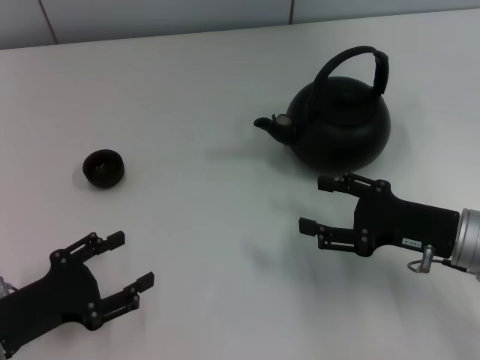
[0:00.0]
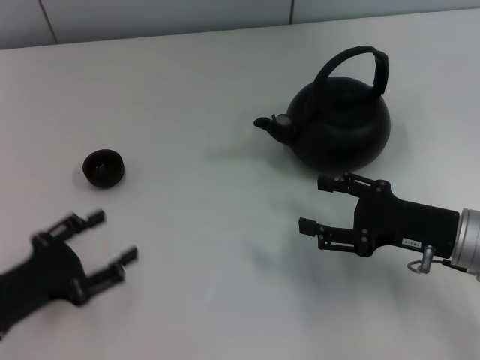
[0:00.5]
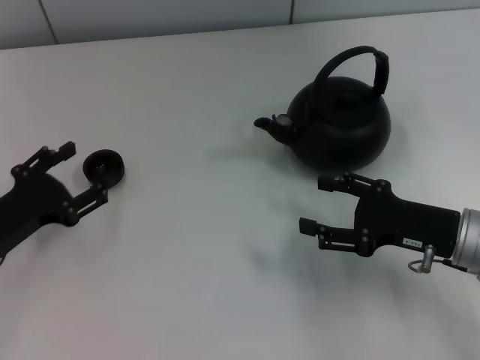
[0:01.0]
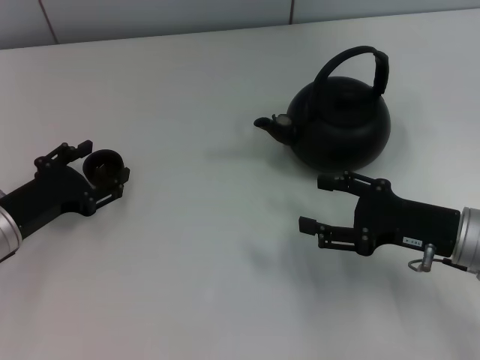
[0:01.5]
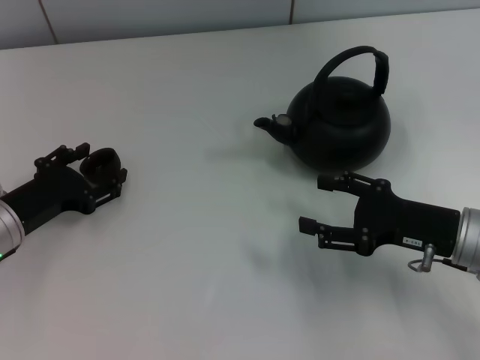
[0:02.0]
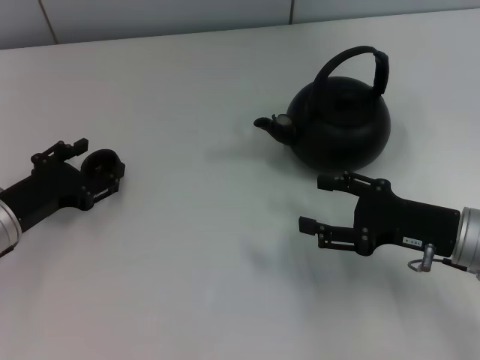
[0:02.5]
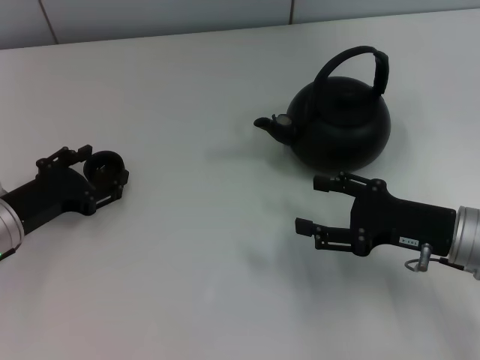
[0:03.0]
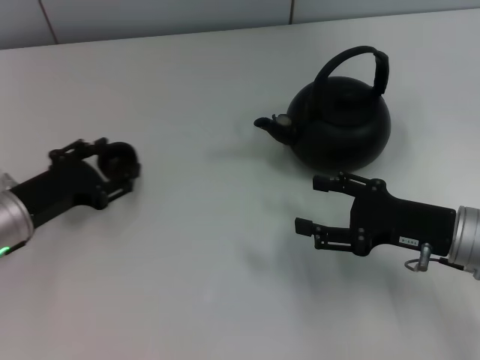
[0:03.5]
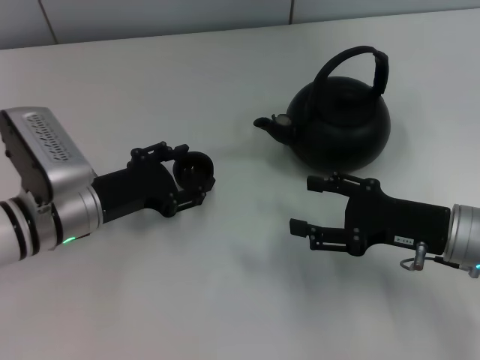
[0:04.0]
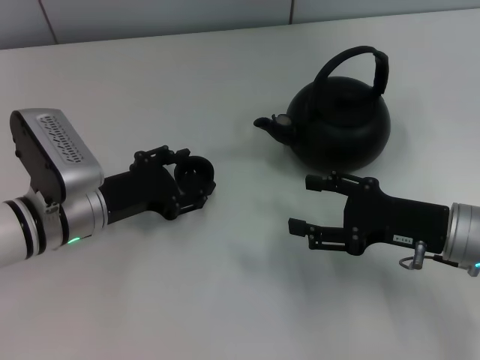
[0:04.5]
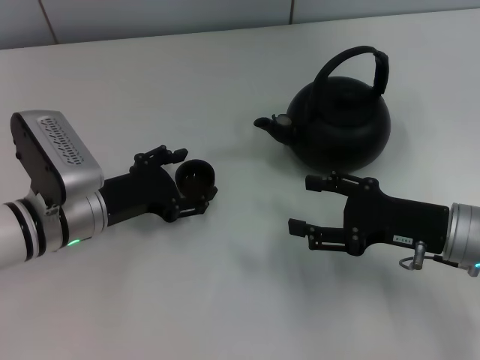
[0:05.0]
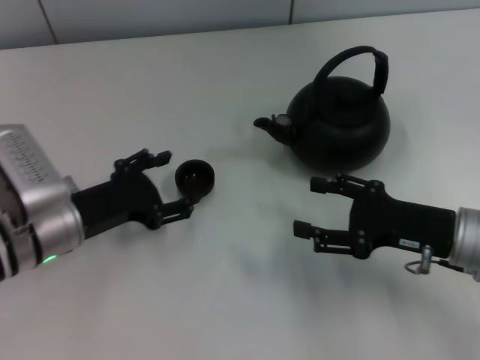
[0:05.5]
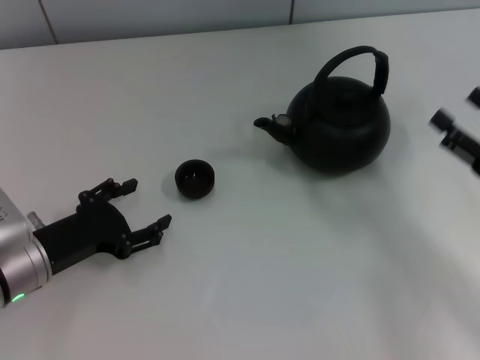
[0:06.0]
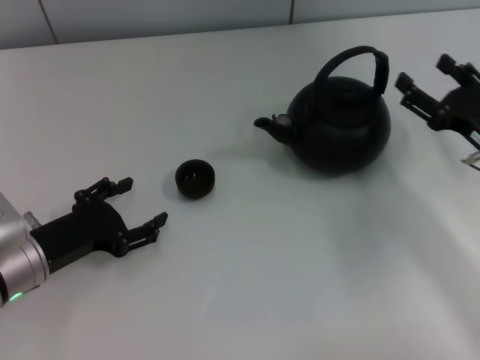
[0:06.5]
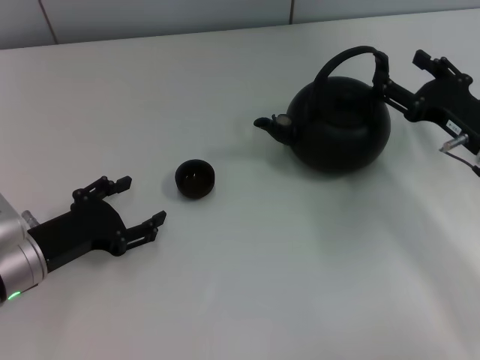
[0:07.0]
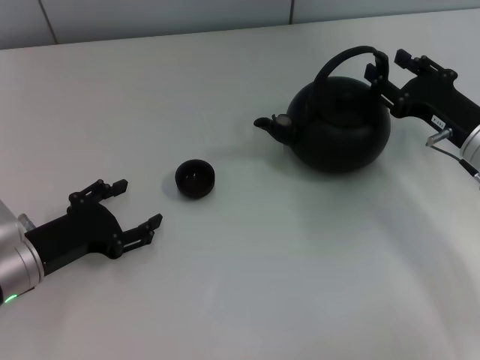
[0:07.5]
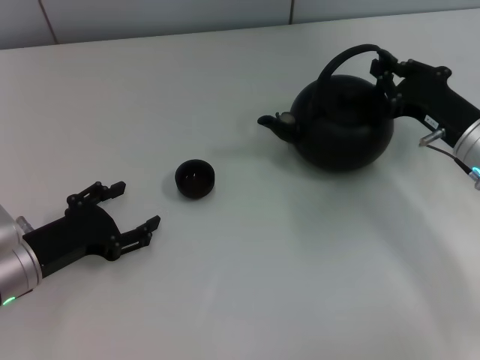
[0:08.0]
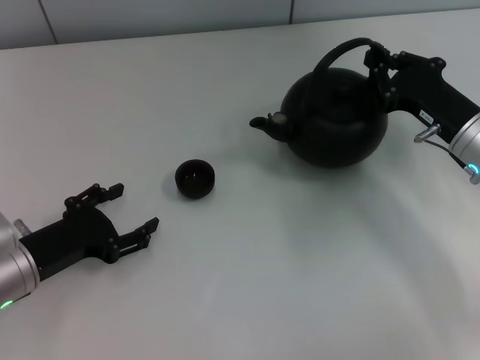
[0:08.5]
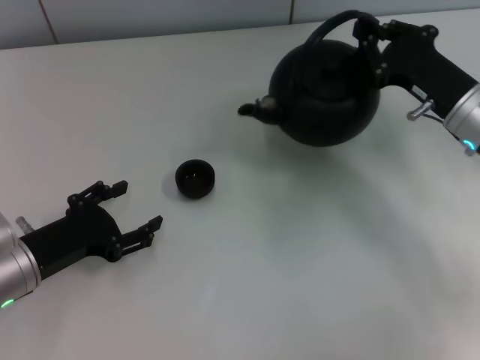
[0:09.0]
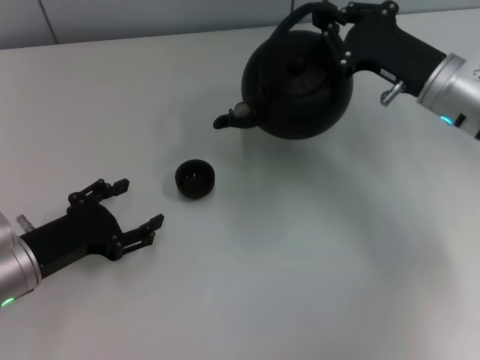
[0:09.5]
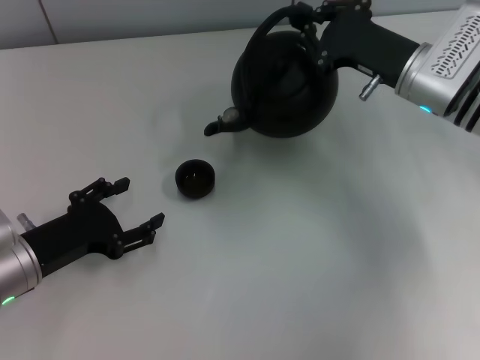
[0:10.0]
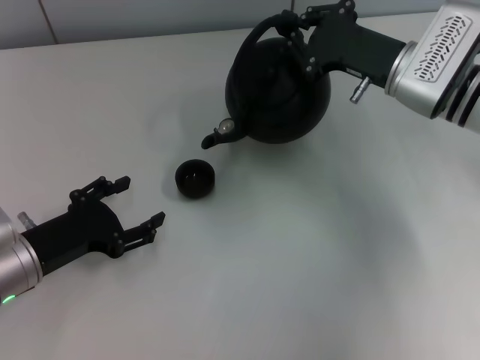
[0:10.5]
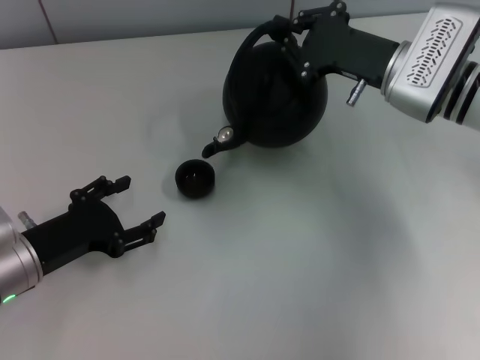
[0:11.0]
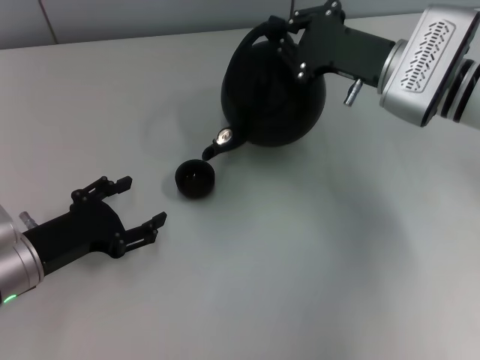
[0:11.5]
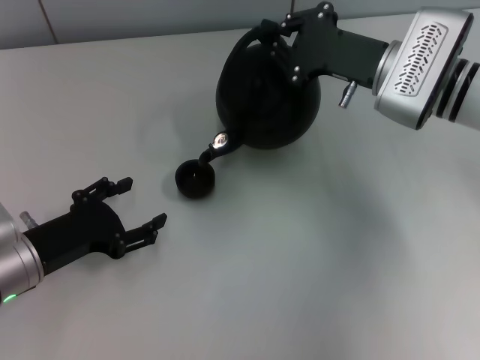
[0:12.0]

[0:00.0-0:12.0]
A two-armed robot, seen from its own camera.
Task of the whole recording: Grasp the handle of the teapot with one hand and pour tea into the teacup.
Step, 0:00.0 to 0:04.0: Pick up the teacup with the left gripper.
Step, 0:04.5 to 0:05.5: Place the teacup in the center of view with the left gripper.
Step, 0:06.0 to 0:08.5: Pick up the teapot with the right gripper.
0:00.0 to 0:02.0: The left gripper is displaced forward by some 10 cm.
0:02.0 to 0:04.0: The left gripper shifts some 5 cm to the right, and opens, then closes once more.
0:04.0 to 0:06.0: The right gripper is displaced to the right by approximately 10 cm. The left gripper moves some 5 cm, and opens up.
0:06.0 to 0:08.0: The right gripper goes roughly 10 cm forward and to the left, and closes.
0:08.0 to 0:10.0: The right gripper goes some 10 cm forward, to the left and upward, and closes its fingers.
0:10.0 to 0:12.0: There are only small adjustments of the grippers.

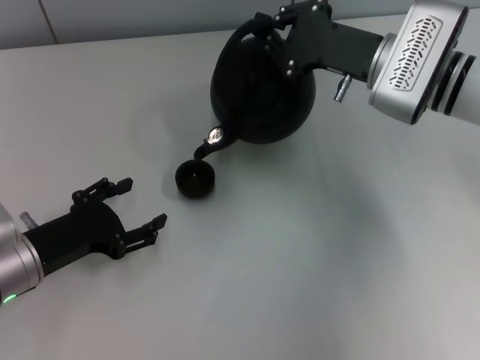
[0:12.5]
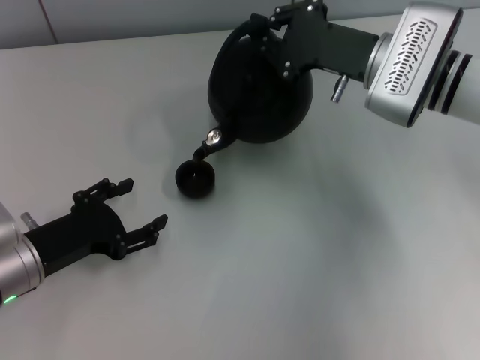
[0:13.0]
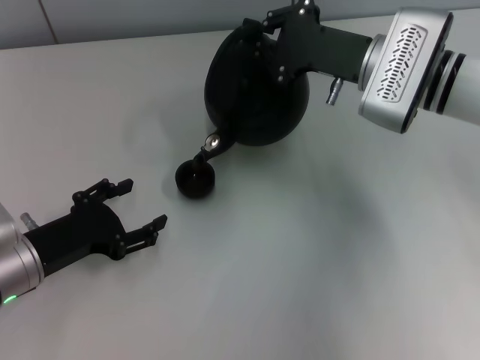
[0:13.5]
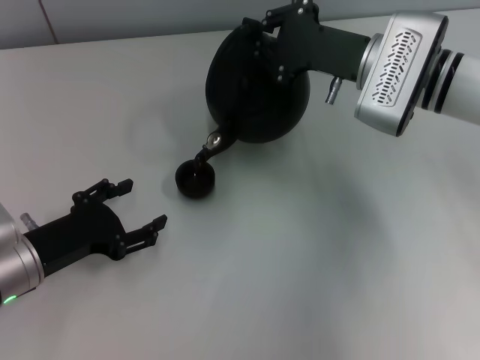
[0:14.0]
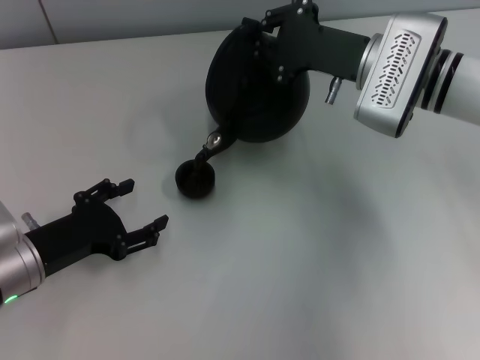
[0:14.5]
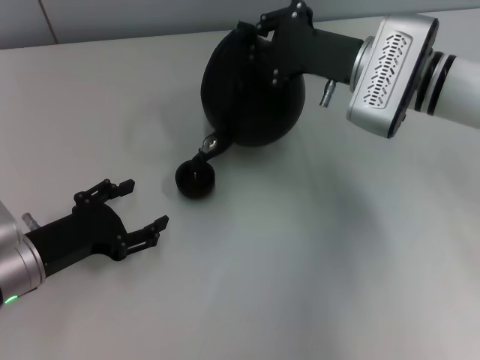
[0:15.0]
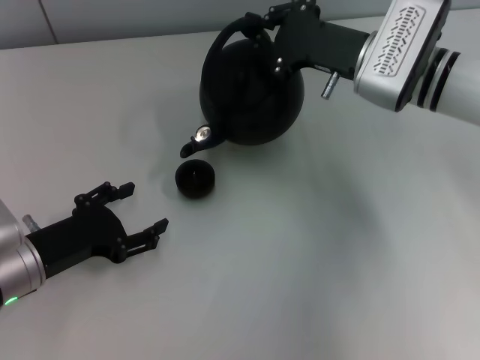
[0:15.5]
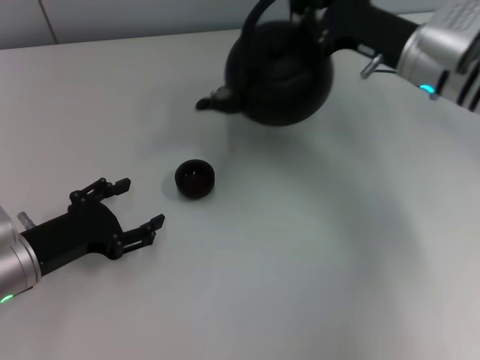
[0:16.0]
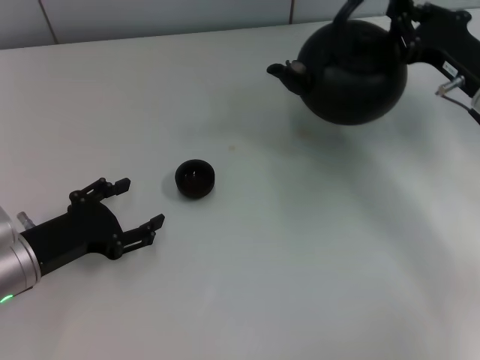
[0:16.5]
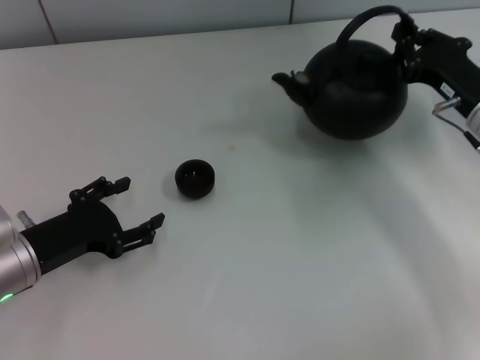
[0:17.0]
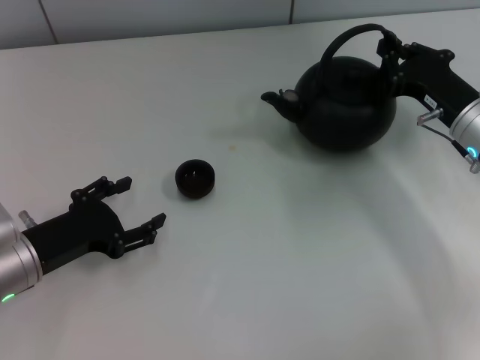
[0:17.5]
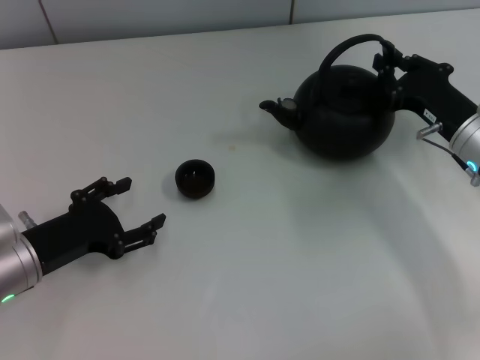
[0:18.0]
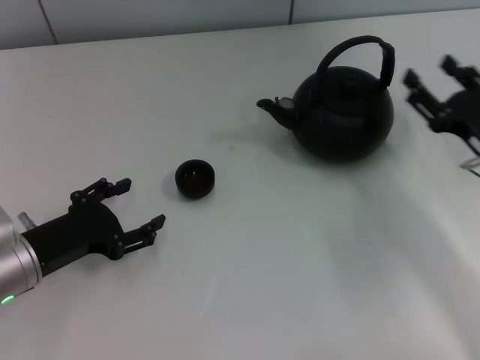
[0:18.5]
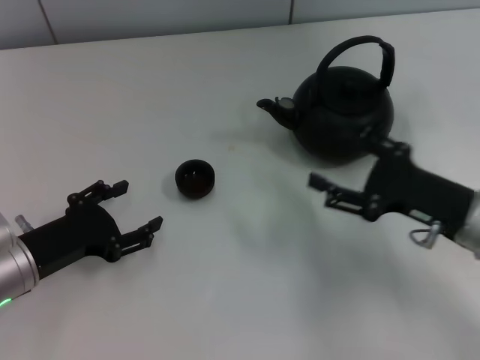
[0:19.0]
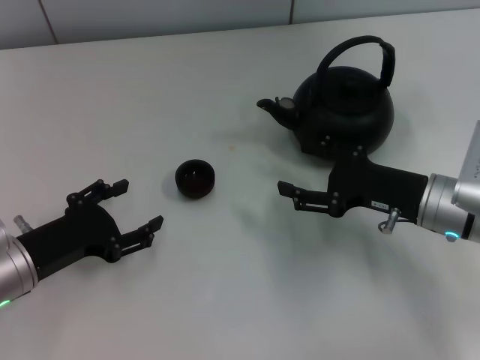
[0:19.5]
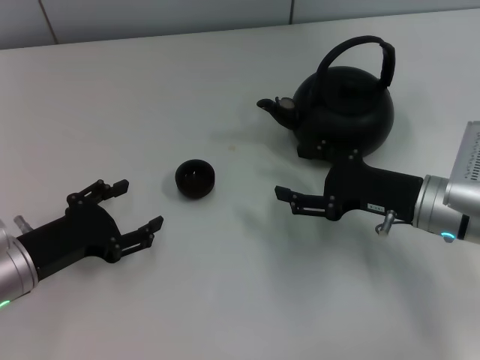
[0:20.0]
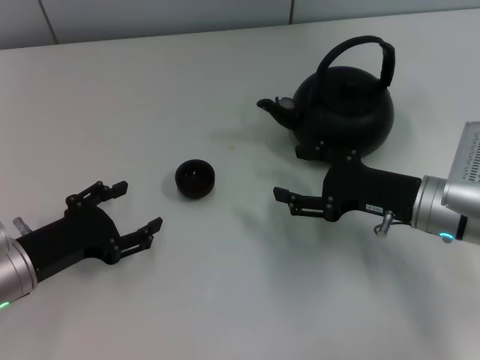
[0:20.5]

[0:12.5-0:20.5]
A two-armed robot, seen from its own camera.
Task of the whole recording: Grasp the handle of the teapot with one hand and pour tea into the teacup.
Step, 0:16.5 to 0:18.5: Put down the teapot with the right gripper.
0:12.5 to 0:14.5: There are only small adjustments of the grippers.
0:14.5 to 0:16.5: The right gripper travels to the right and backward by about 10 cm.
0:16.5 to 0:18.5: The right gripper is displaced backward by roughly 10 cm, and opens its fingers.
0:18.5 to 0:20.5: The right gripper is displaced to the left by roughly 5 cm, and opens up.
